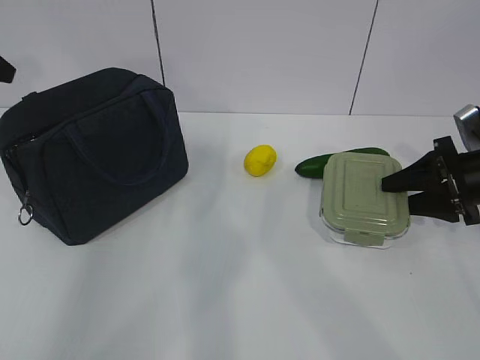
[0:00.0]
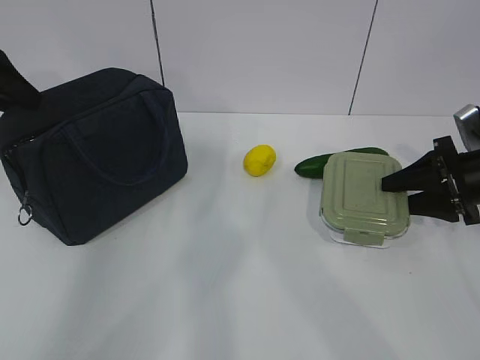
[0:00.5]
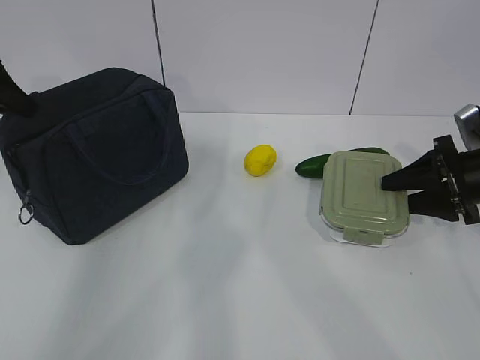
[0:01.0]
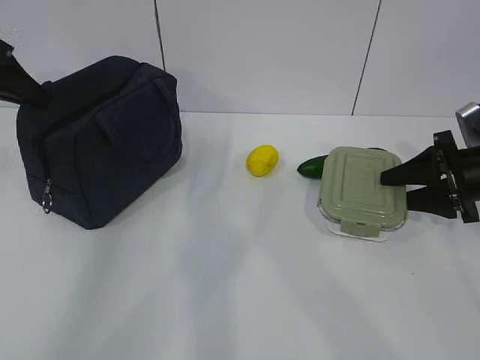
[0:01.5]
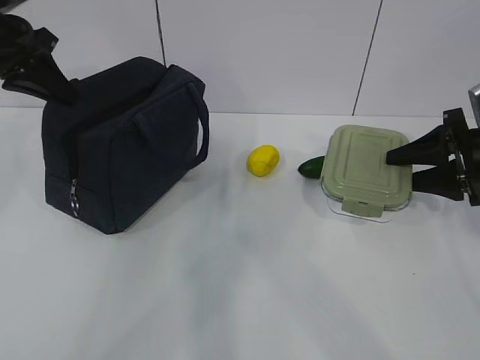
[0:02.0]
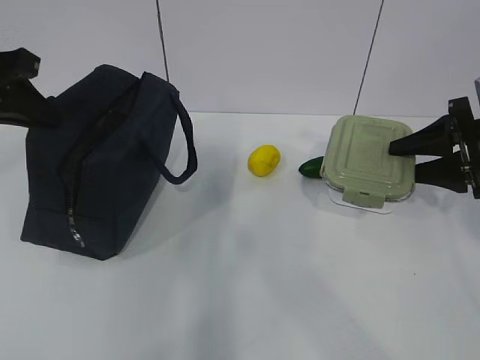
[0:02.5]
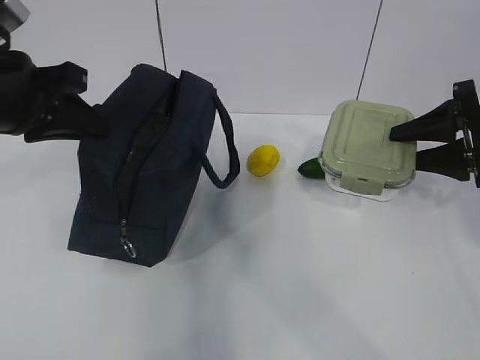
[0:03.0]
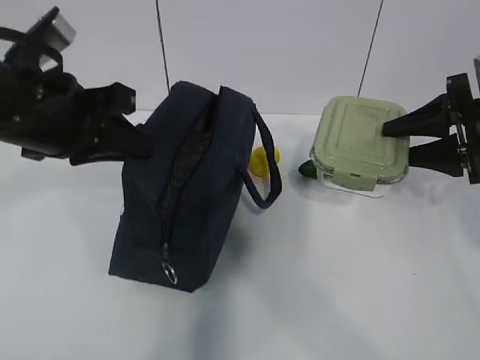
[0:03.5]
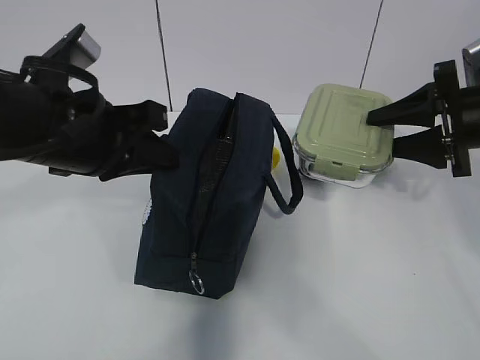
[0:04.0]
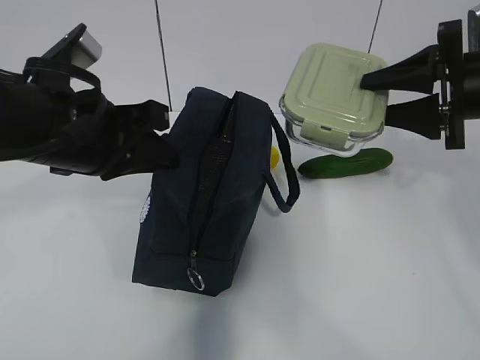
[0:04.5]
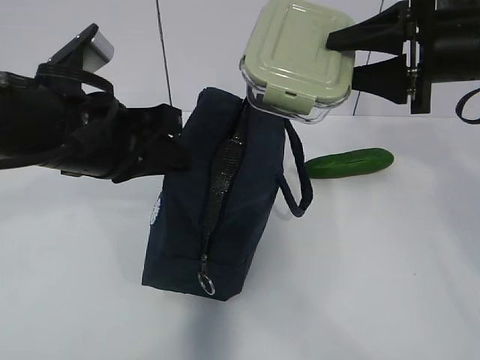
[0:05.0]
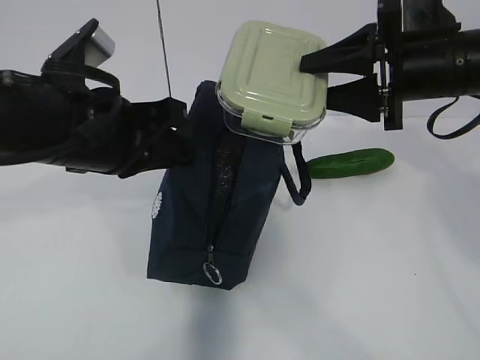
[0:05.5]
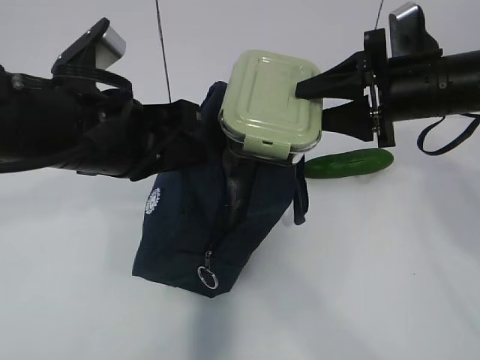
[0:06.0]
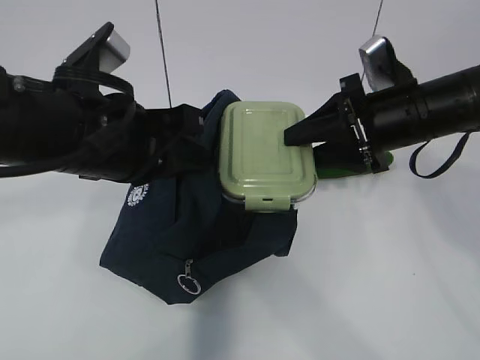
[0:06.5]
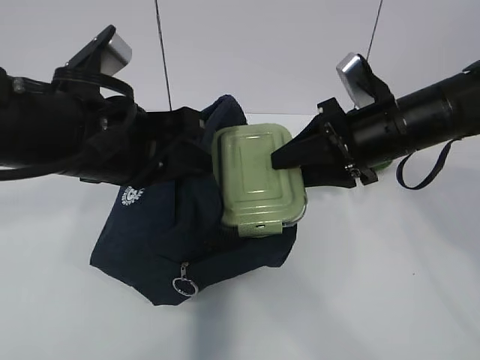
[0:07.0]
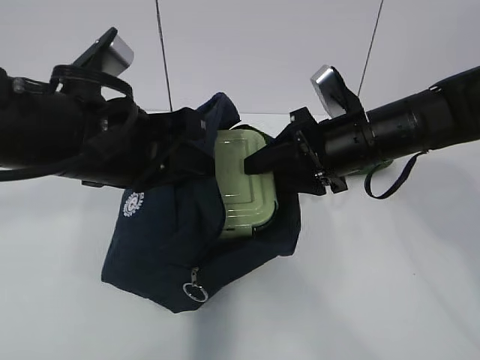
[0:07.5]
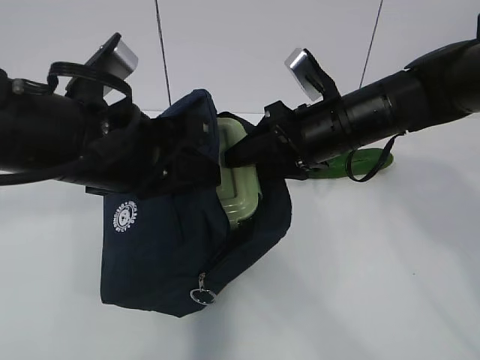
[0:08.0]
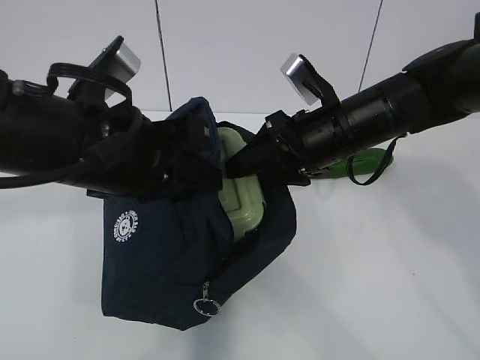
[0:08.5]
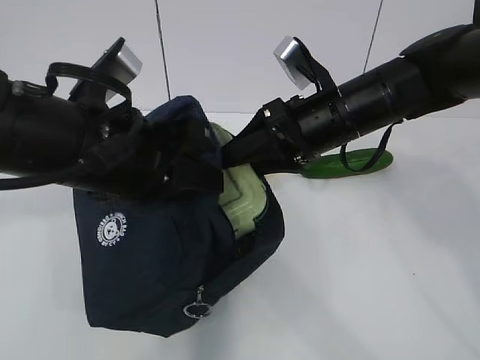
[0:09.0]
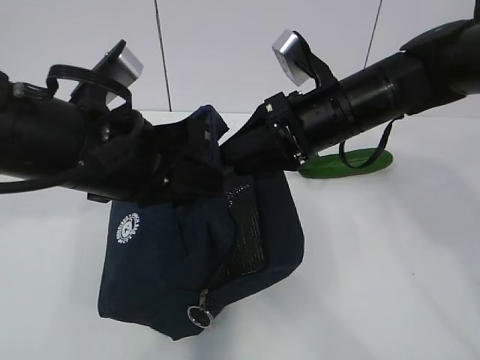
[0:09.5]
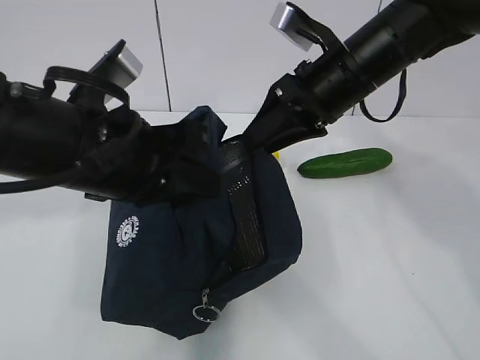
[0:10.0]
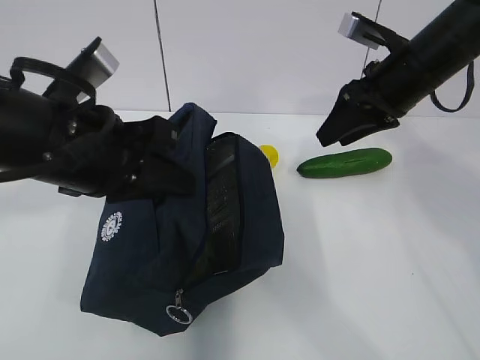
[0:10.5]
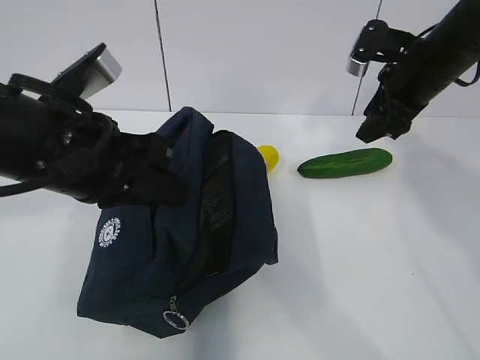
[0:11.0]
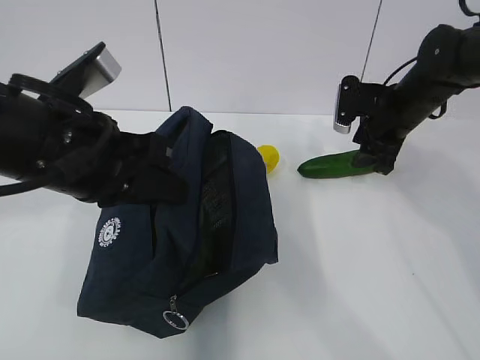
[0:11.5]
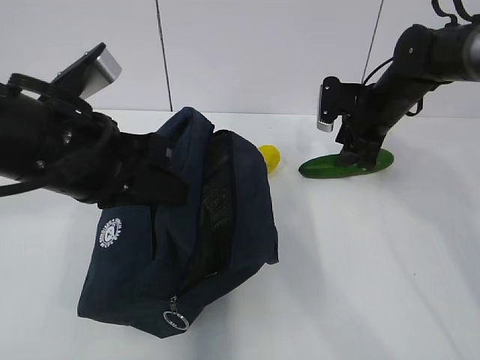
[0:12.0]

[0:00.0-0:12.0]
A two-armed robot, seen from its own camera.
Step, 1.5 to 9.5 s: Place the box into the package with the right gripper.
0.0 to 2.0 s: The left gripper travels to the right by roughly 10 cm, and closes its fingers.
2.0 to 4.0 s: The right gripper shifts some 5 cm upward. The left gripper travels backward and to the right by about 20 cm.
4.0 to 6.0 s: The right gripper moves to the left, approximately 10 cm.
6.0 to 8.0 s: The right gripper goes approximately 10 cm to the left.
8.0 to 10.0 s: The right gripper goes roughly 5 cm upward.
10.0 to 12.0 s: The right gripper moves forward, downward and to the right, some 15 cm.

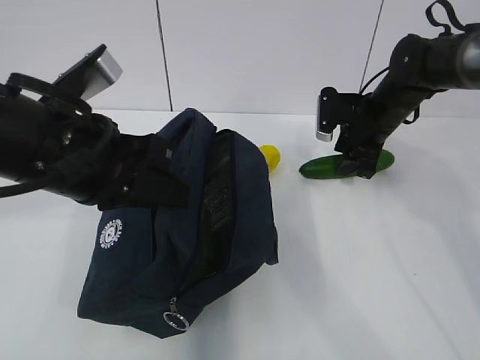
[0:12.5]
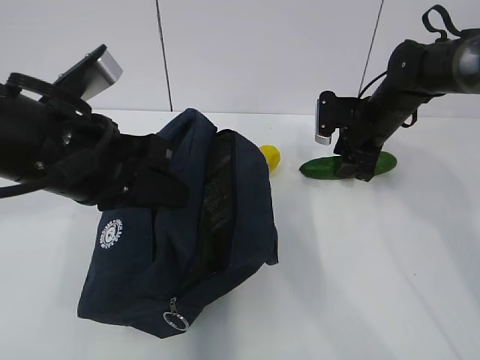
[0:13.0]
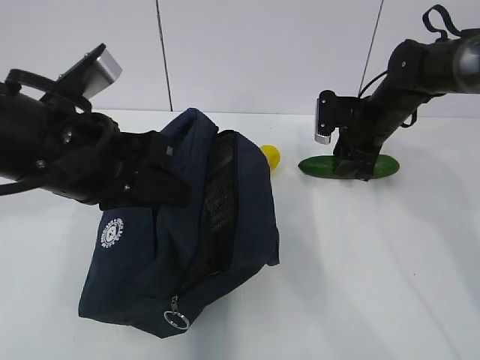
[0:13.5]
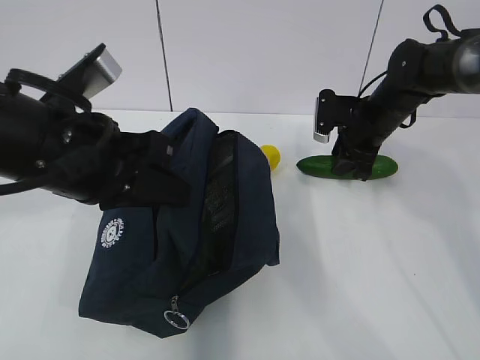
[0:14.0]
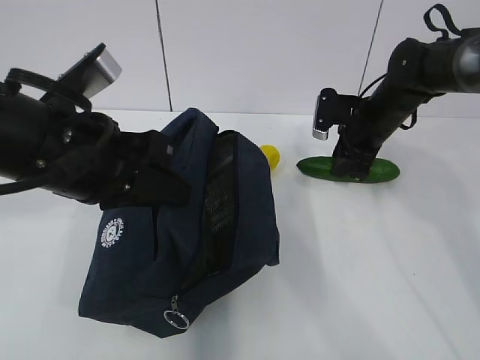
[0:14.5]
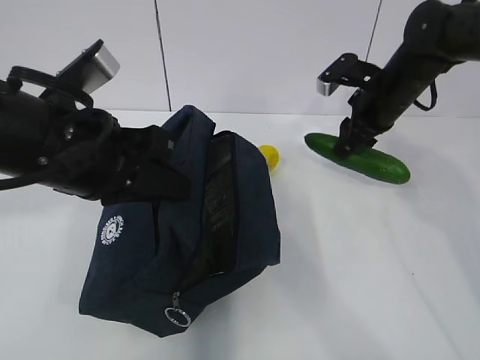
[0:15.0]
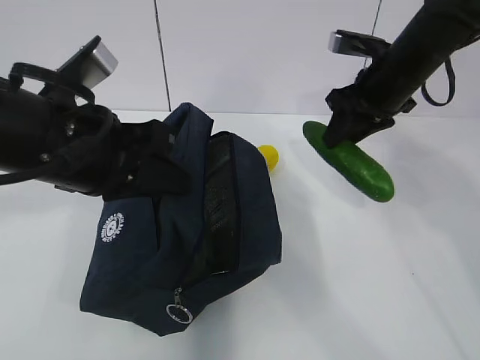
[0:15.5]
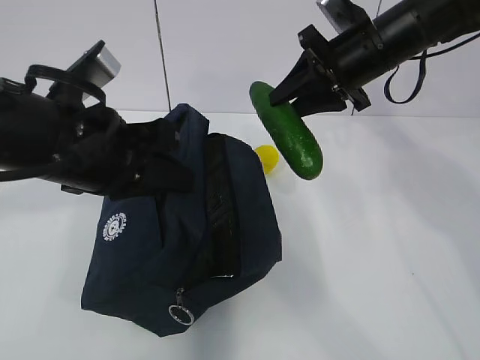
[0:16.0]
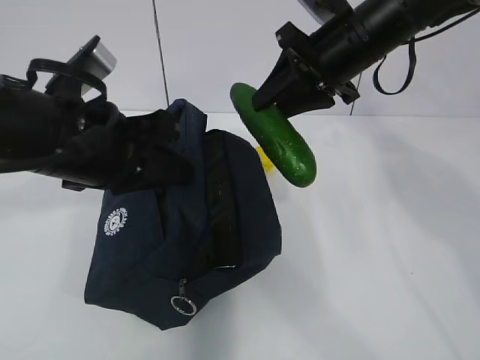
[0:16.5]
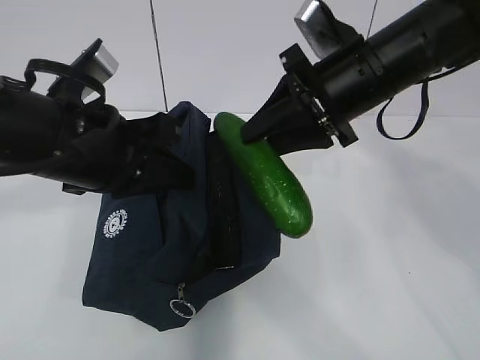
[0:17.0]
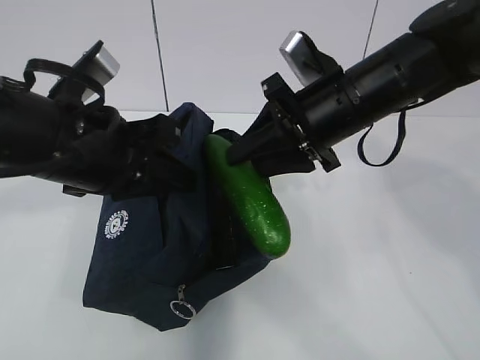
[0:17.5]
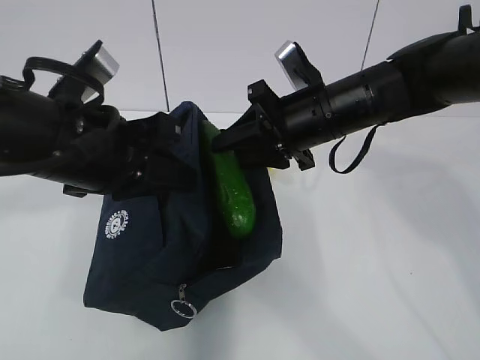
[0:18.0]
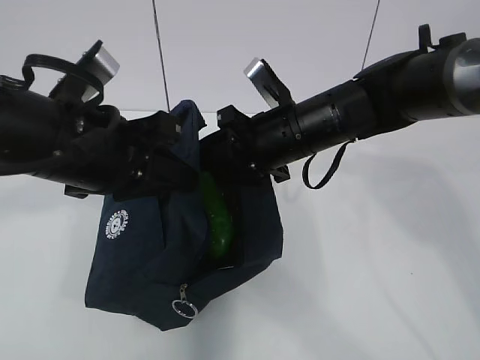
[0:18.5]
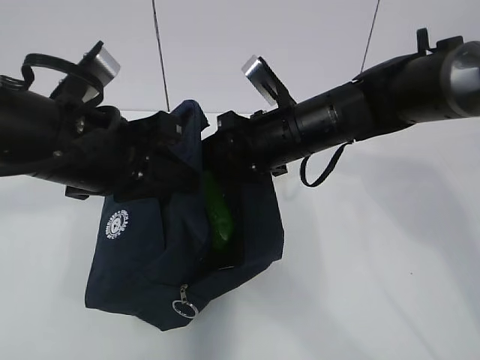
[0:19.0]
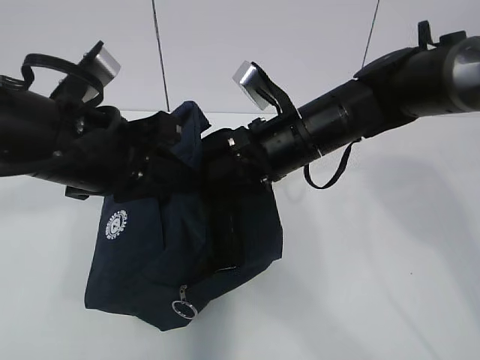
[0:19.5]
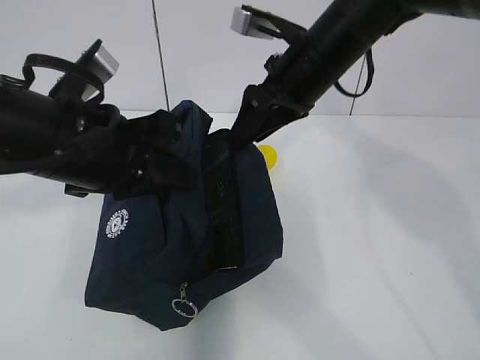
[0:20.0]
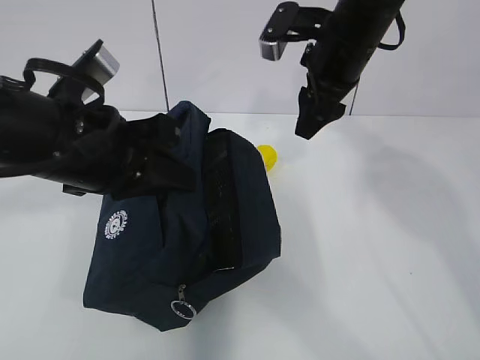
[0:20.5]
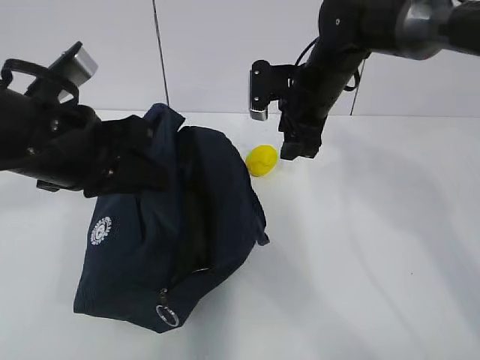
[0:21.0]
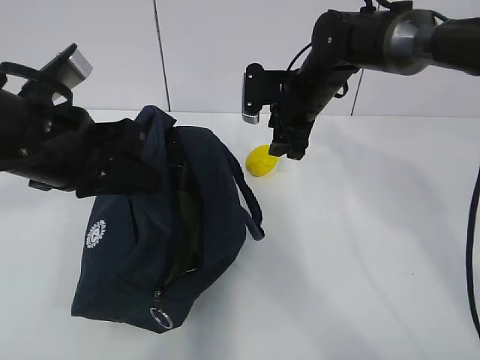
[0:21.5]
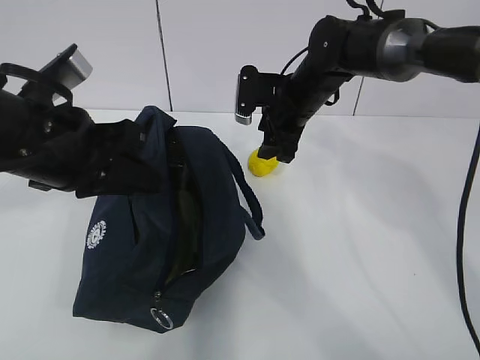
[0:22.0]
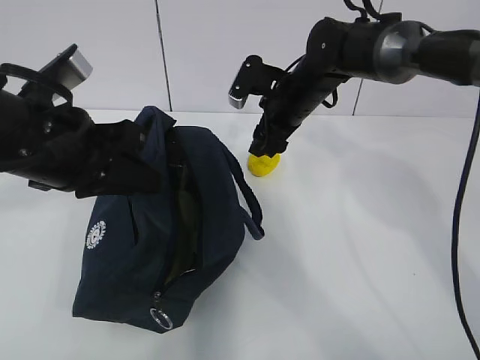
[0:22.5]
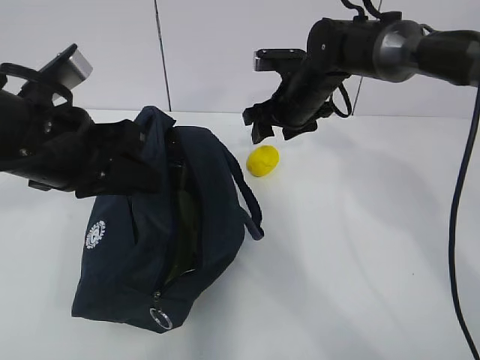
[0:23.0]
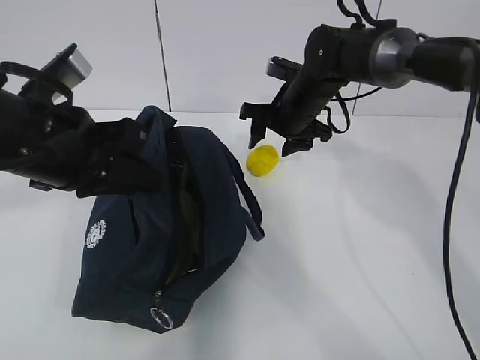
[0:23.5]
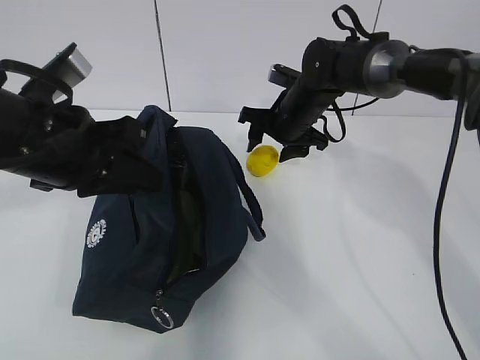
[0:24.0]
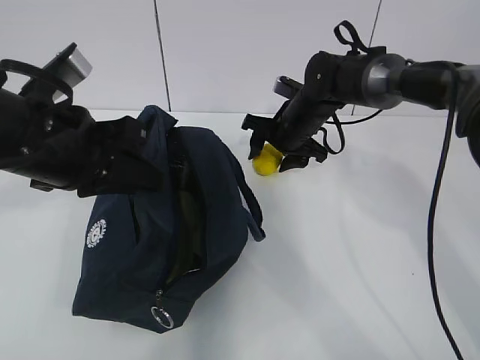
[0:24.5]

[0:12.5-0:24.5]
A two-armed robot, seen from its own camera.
Step, 12.5 to 14.5 s: Grasp the cucumber with the right gripper.
Step, 15.0 to 19.5 s: Place the cucumber into the package with the right gripper.
12.5 to 14.5 s: The two grippers keep their place.
14.5 to 16.5 s: The right gripper travels upward, backward and to the left by approximately 20 cm.
16.5 to 18.5 s: The right gripper shifts some 10 cm downward and to the left.
18.5 to 20.5 s: The right gripper moves upward and to the right, approximately 10 cm.
20.5 to 22.5 s: The right gripper shifts approximately 15 cm downward and forward.

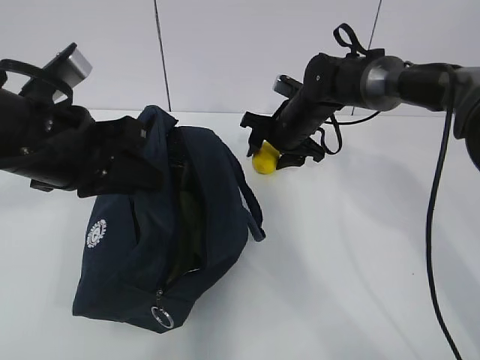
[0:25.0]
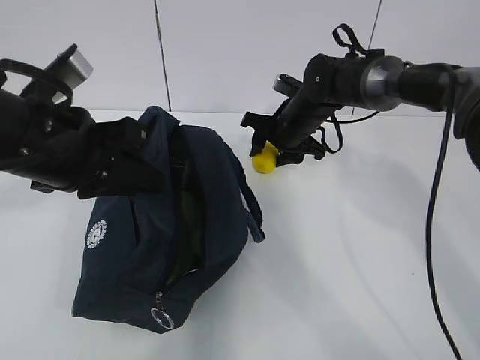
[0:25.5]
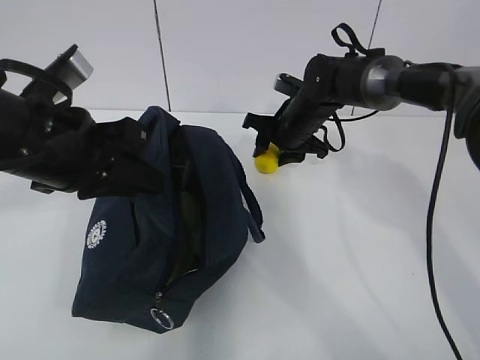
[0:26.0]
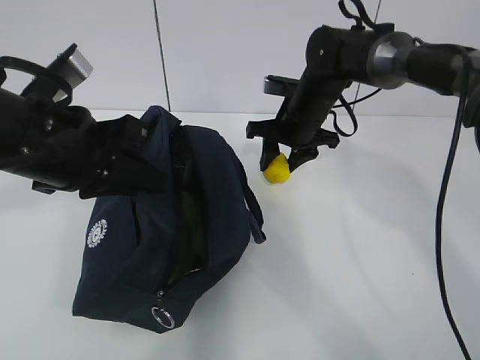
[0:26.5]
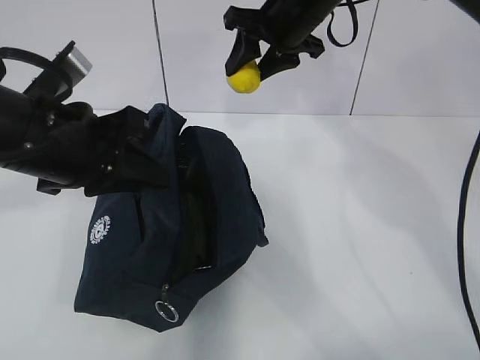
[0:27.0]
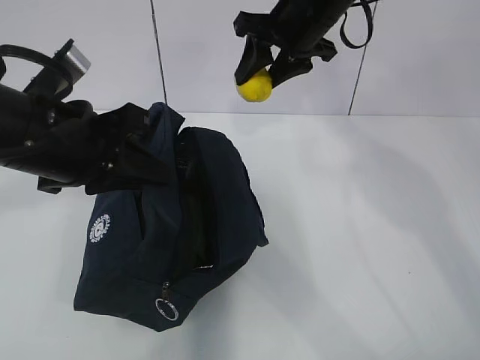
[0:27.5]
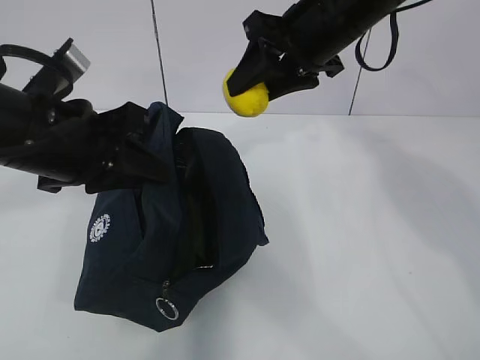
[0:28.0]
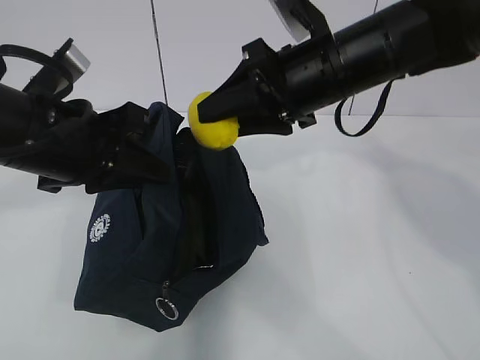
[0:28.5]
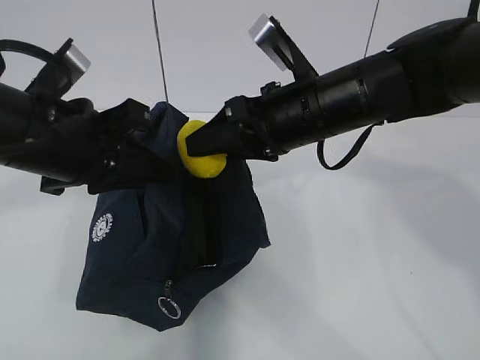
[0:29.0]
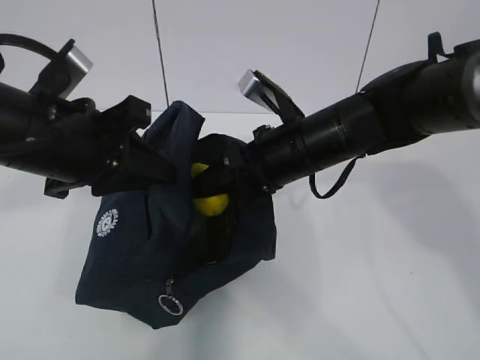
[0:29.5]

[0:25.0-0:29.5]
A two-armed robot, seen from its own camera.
25.0 to 27.0 s: The right gripper is displaced upward by roughly 15 cm.
27.0 to 29.5 s: The right gripper shifts some 15 cm backward and downward.
